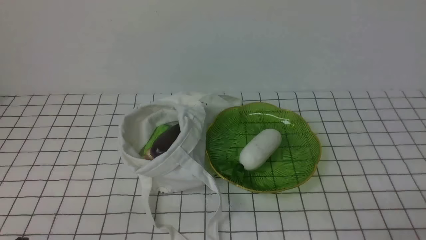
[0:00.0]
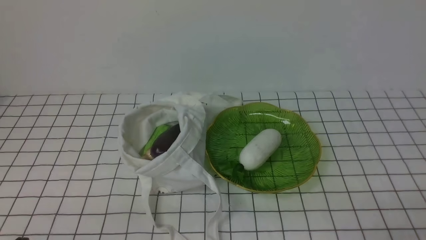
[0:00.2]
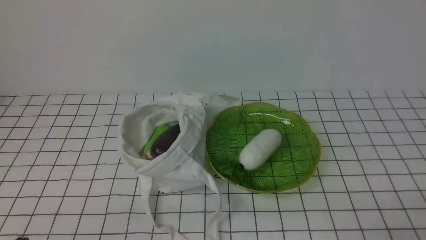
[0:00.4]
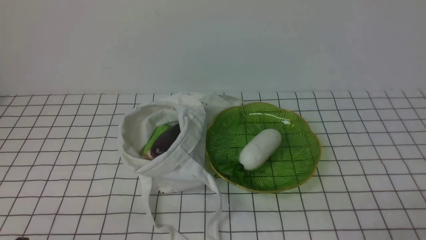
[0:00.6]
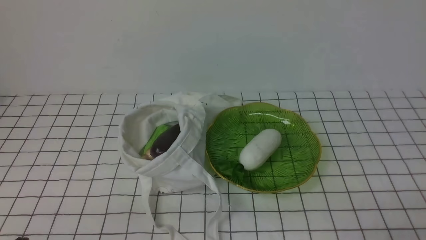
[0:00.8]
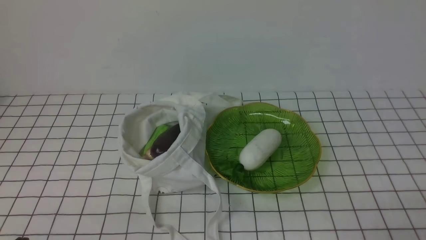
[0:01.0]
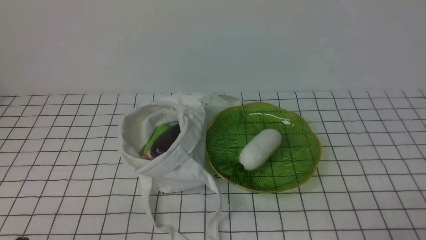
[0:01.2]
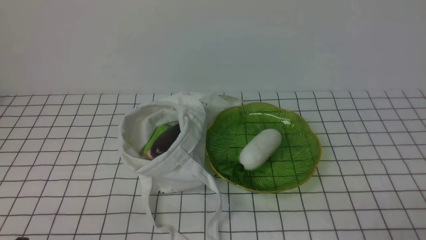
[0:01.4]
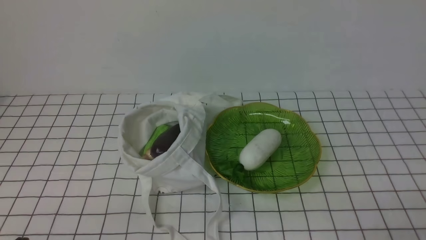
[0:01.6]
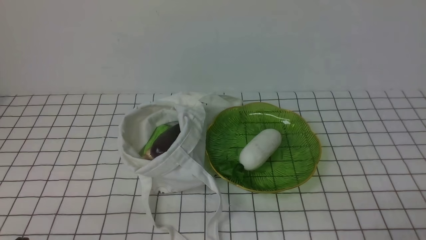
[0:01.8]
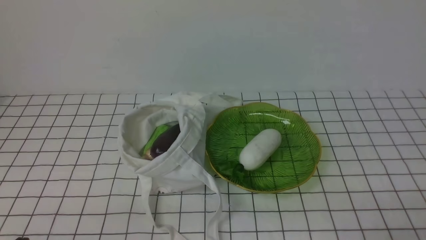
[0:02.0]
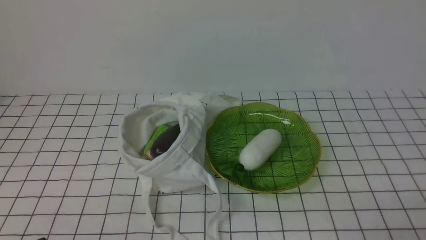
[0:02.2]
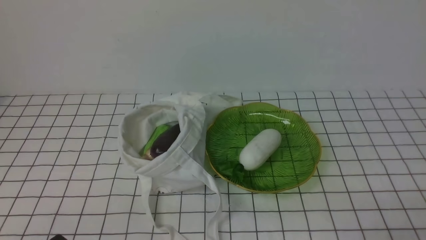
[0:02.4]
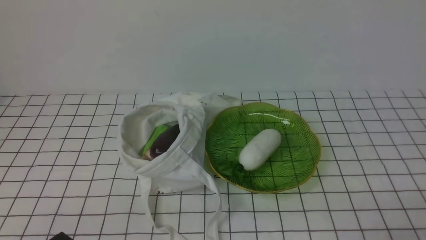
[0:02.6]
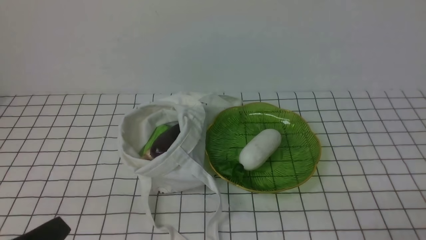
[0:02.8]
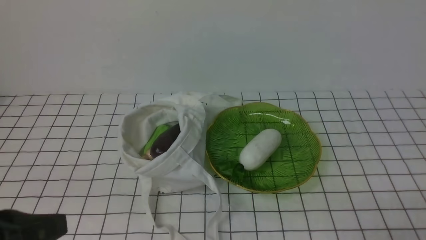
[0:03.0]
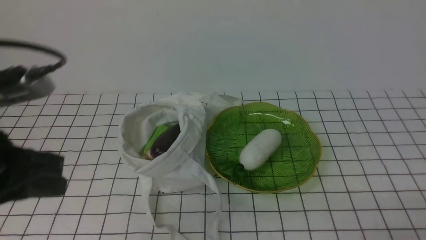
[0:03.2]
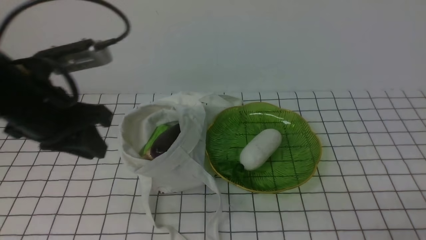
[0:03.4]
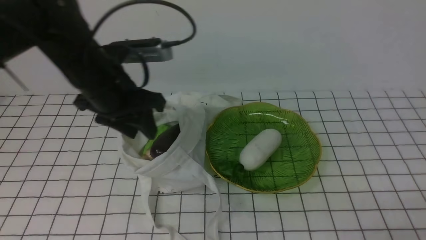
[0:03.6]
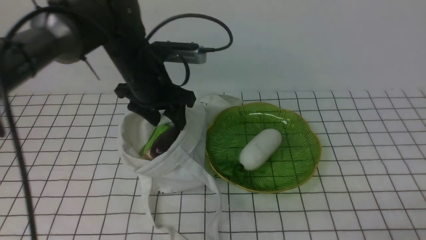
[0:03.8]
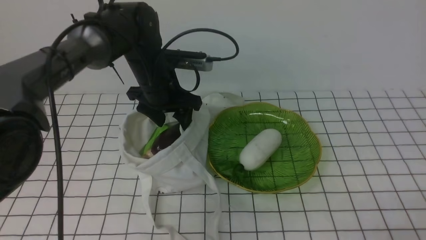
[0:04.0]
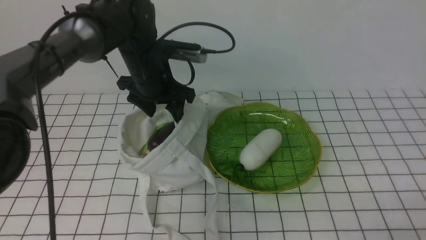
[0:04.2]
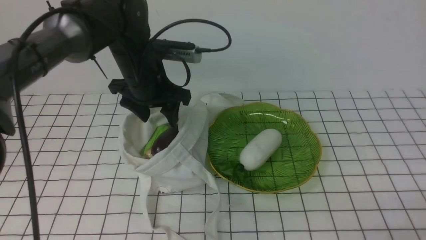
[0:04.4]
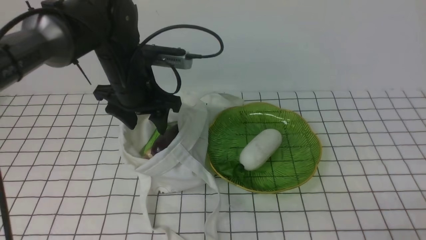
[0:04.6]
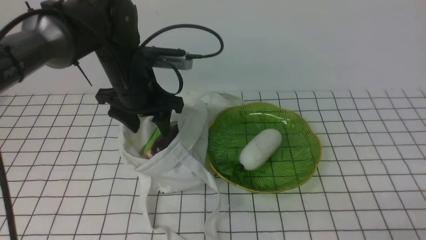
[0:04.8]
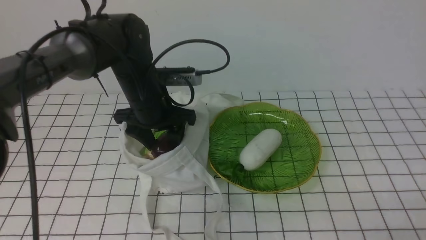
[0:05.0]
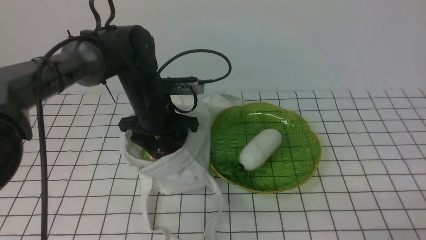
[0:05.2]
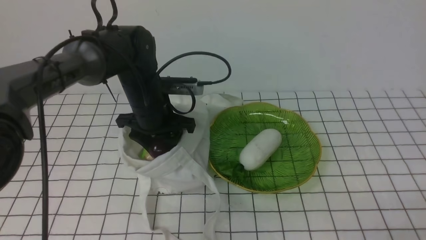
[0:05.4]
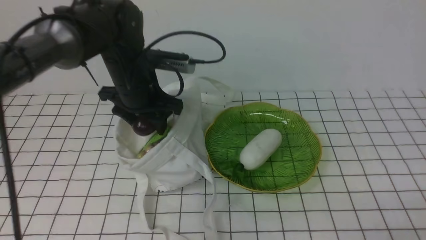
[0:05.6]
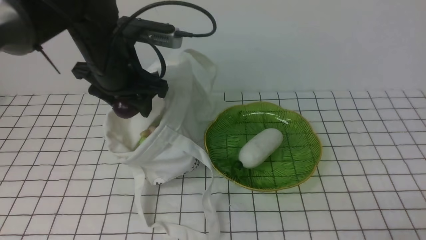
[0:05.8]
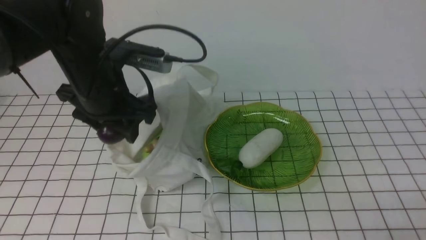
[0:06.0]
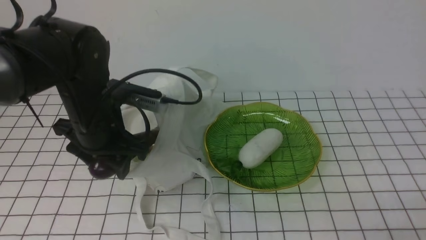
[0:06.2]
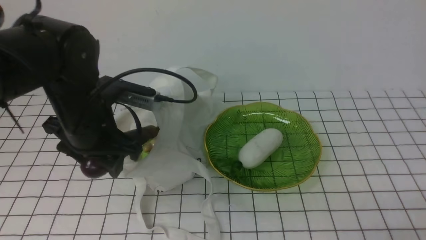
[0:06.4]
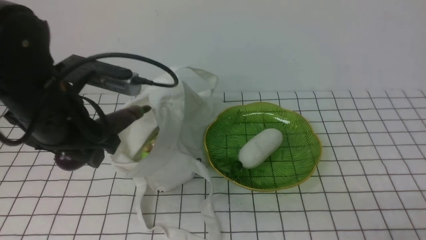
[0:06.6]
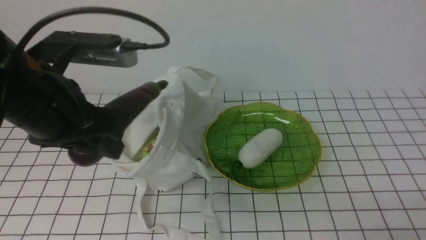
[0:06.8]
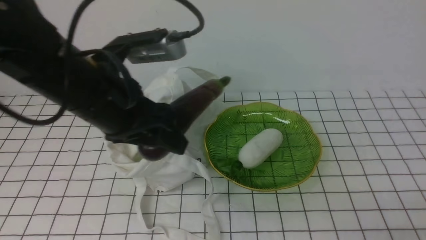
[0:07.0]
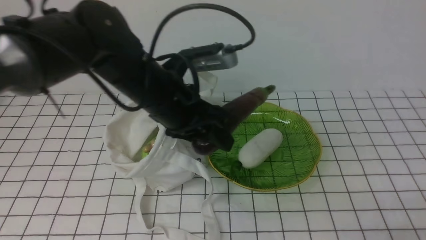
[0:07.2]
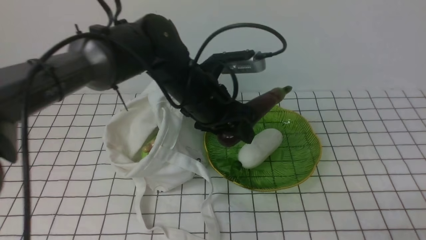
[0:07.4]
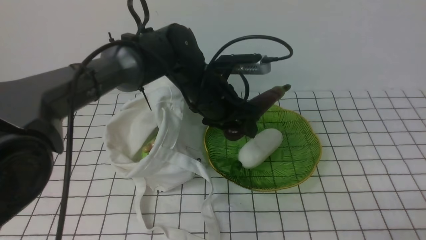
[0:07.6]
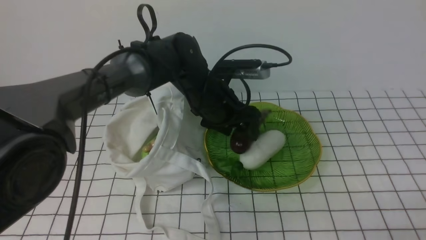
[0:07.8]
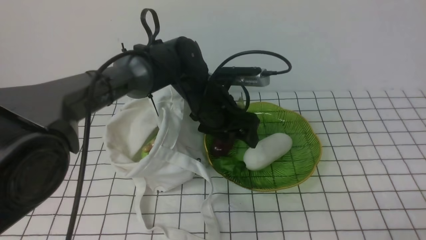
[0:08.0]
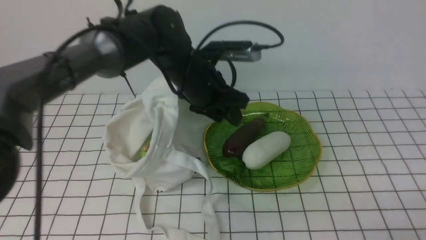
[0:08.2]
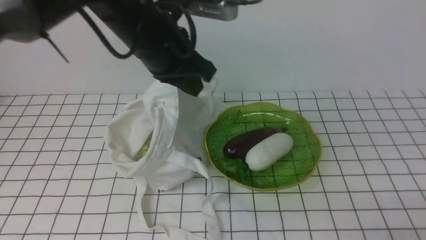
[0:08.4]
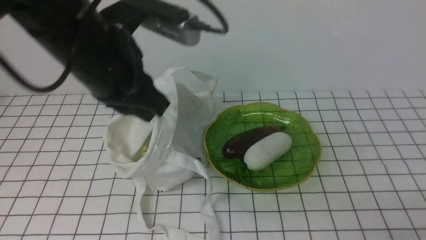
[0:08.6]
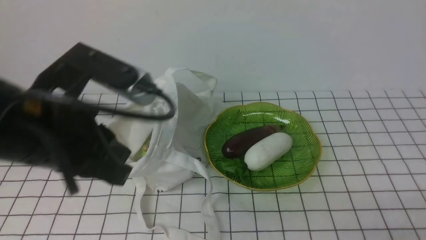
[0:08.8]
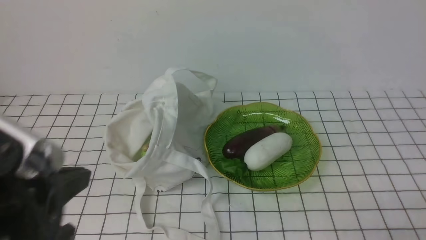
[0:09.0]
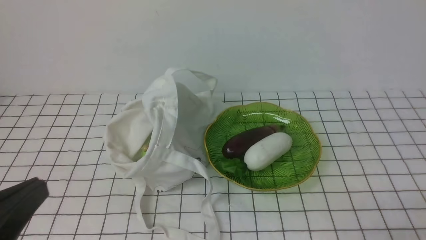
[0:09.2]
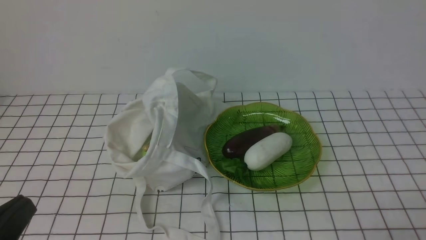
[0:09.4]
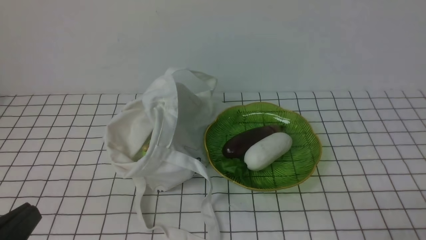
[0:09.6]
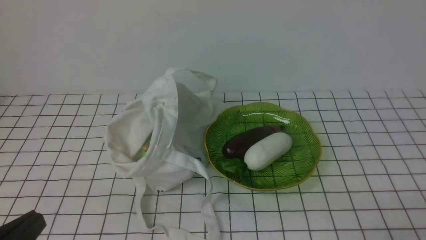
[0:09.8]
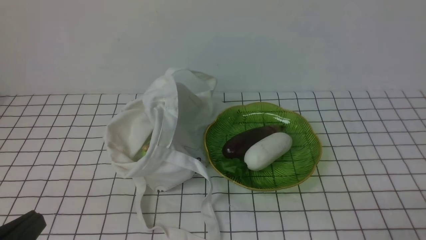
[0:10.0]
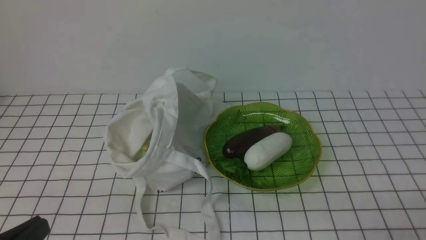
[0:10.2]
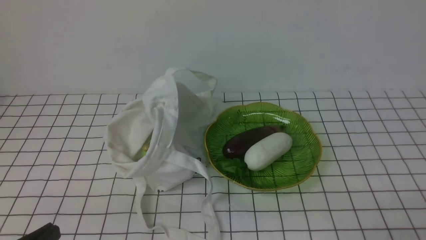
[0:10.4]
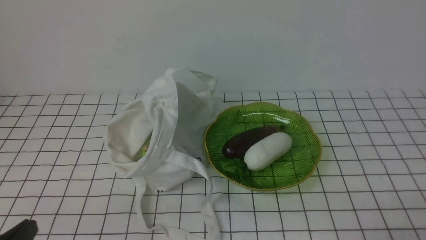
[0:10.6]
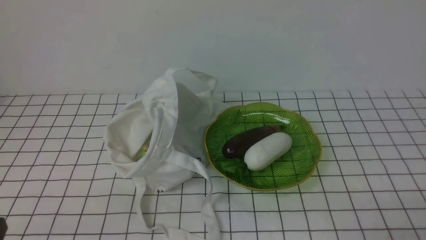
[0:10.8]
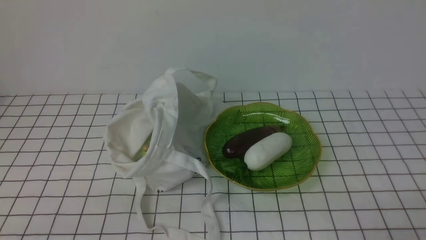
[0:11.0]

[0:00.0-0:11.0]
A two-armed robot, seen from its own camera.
Task of the whole recording: take vegetables from bag on white checkered tablecloth place on plate.
Step, 0:00.0 to 0:05.4: Grasp the eggplant with left gripper.
Step, 0:05.6 to 0:08.2: Place the eggplant on the plate with left gripper.
0:00.0 to 0:01.6: Both grippers stay about where they are.
0:01.6 to 0:03.2: The left gripper travels upward and forward by some 20 cm.
0:03.2 to 0:04.8: The left gripper is displaced forward, to the right and downward by approximately 25 cm, and opens up.
0:04.8 to 0:06.2: The left gripper moves backward, about 10 cm.
0:06.2 to 0:07.8: The left gripper goes about 15 cm to the right and forward.
0:07.8 to 0:09.4: The left gripper heads backward and to the left, covering about 40 cm, and closes its fingers.
0:09.4 to 0:11.0: The left gripper goes some 10 cm downward.

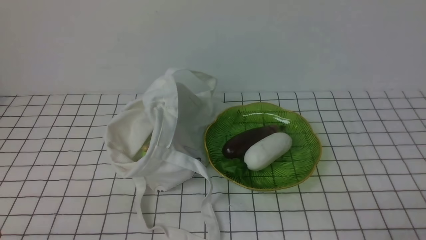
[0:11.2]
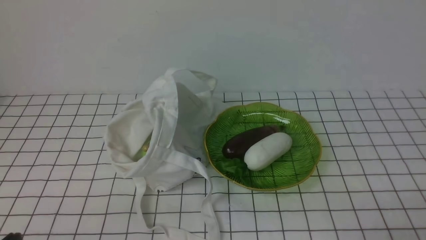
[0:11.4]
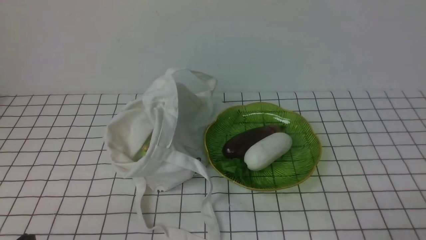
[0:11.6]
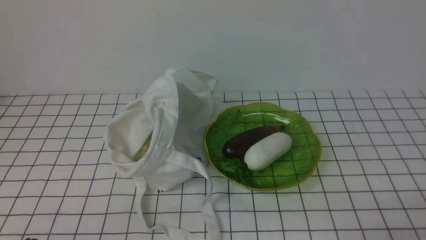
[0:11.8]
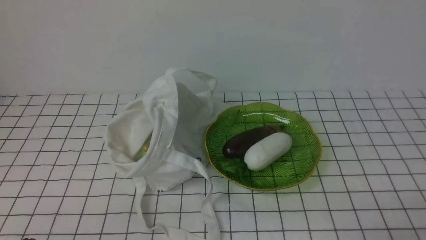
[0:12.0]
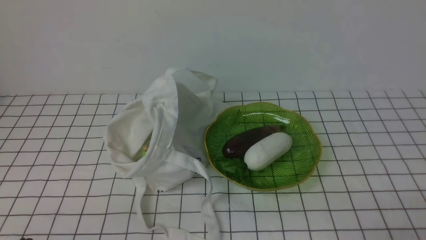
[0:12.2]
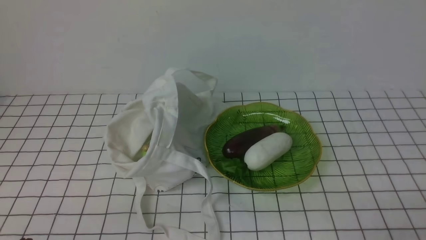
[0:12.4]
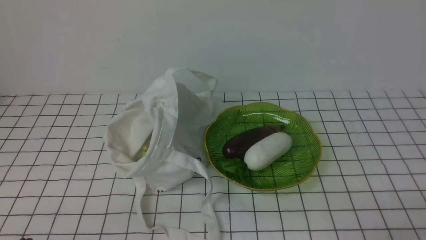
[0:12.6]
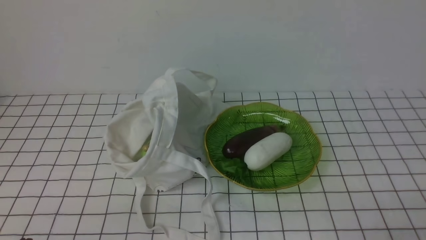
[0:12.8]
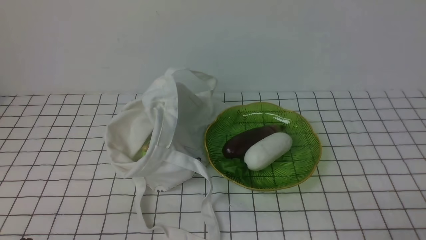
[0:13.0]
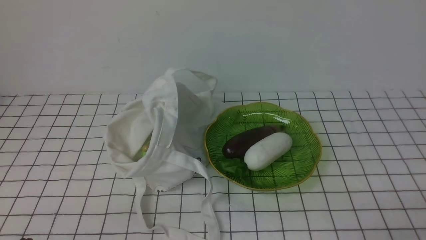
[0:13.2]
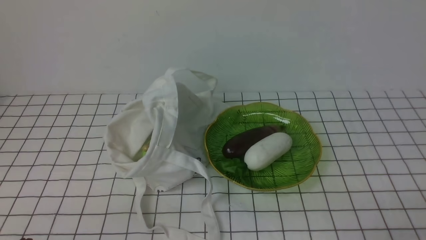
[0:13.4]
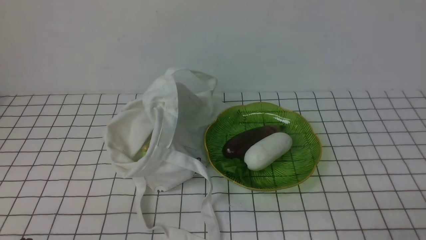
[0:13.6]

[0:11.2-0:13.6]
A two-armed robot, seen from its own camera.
Task of the whole recording: take vegetables from bag on white checkered tablecloth place on plate.
0:12.4 to 0:13.6: The two grippers keep their place.
